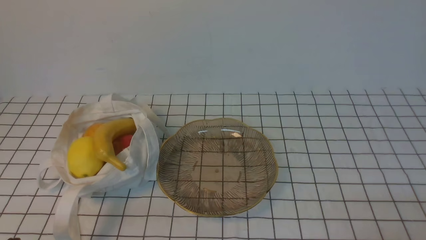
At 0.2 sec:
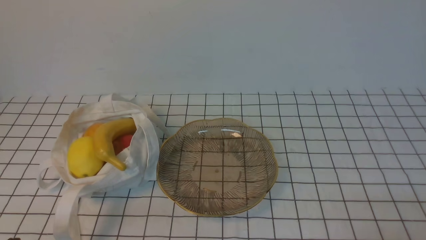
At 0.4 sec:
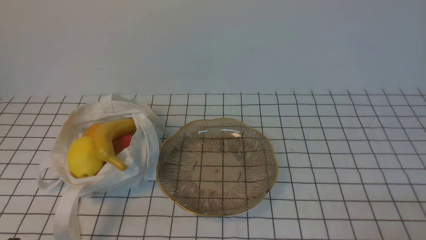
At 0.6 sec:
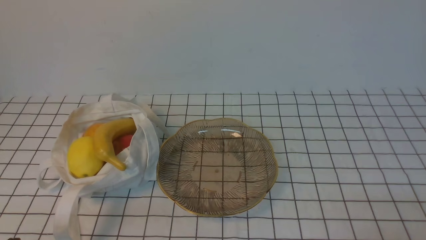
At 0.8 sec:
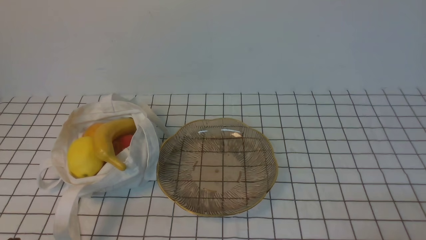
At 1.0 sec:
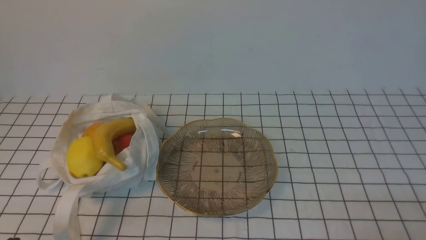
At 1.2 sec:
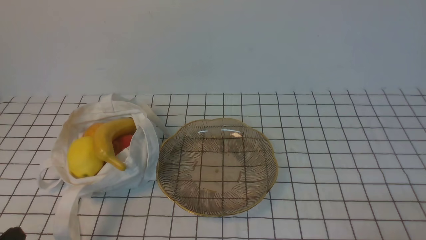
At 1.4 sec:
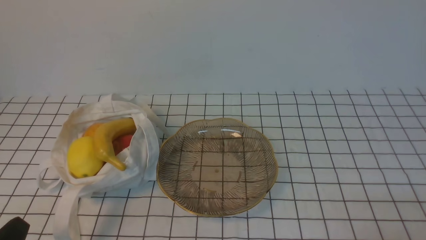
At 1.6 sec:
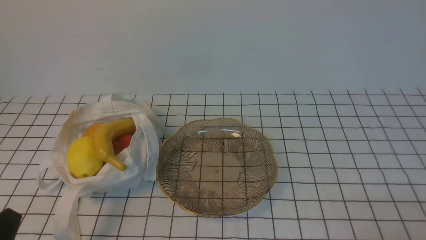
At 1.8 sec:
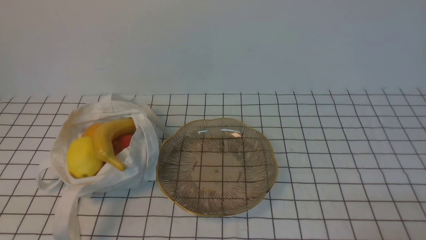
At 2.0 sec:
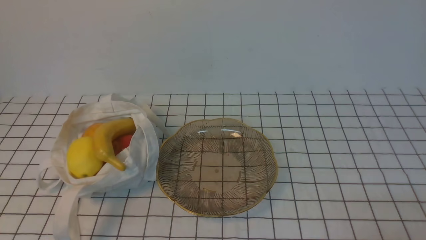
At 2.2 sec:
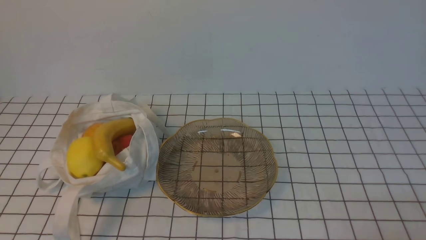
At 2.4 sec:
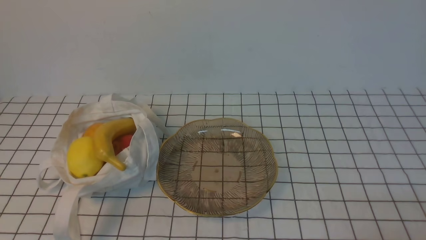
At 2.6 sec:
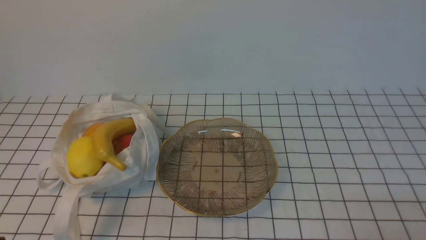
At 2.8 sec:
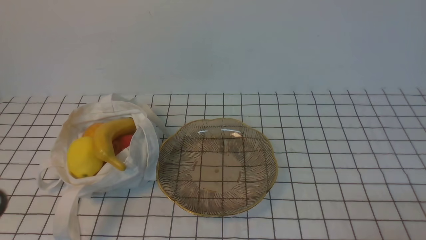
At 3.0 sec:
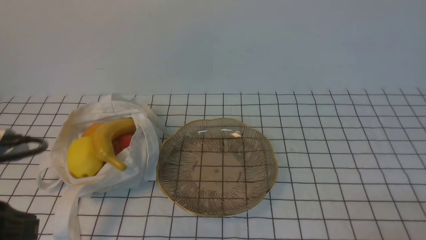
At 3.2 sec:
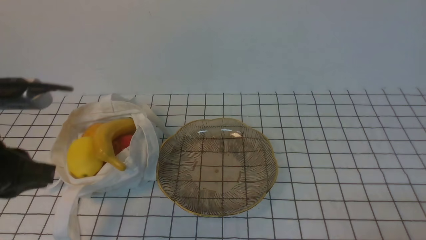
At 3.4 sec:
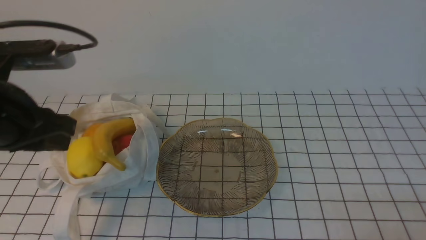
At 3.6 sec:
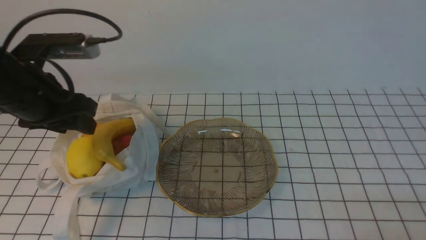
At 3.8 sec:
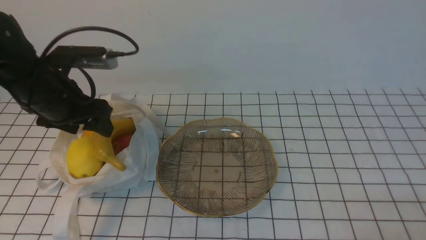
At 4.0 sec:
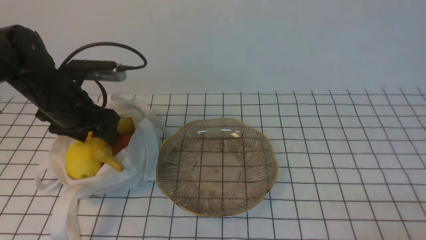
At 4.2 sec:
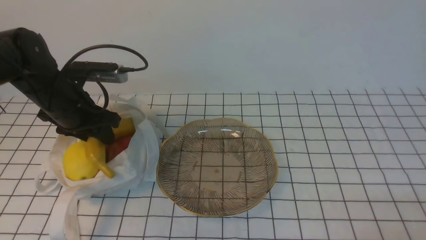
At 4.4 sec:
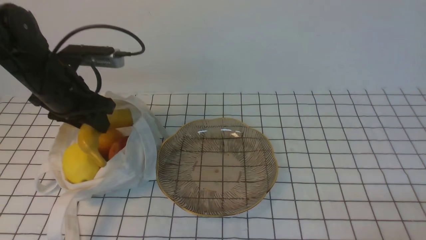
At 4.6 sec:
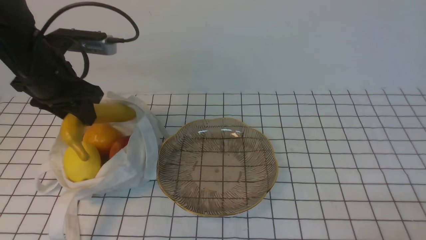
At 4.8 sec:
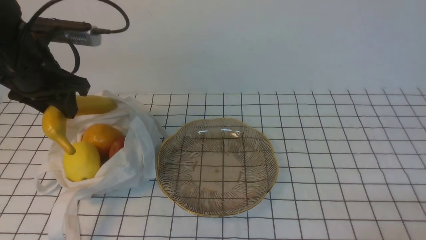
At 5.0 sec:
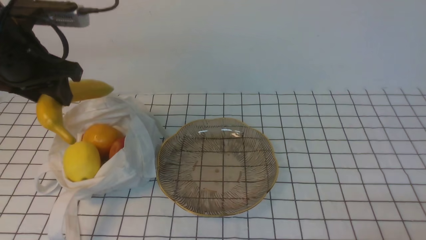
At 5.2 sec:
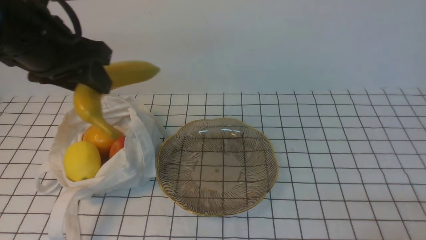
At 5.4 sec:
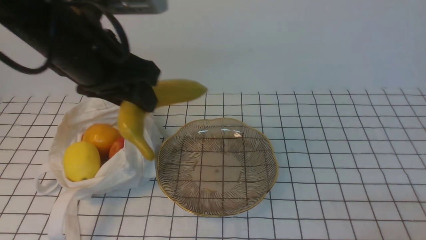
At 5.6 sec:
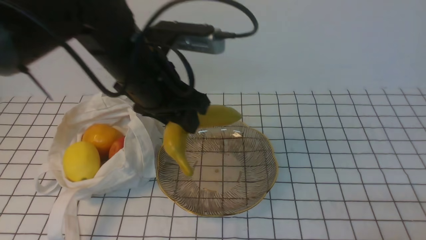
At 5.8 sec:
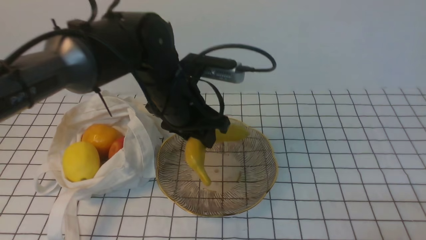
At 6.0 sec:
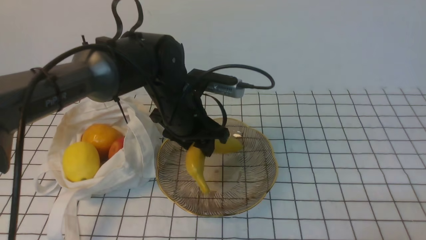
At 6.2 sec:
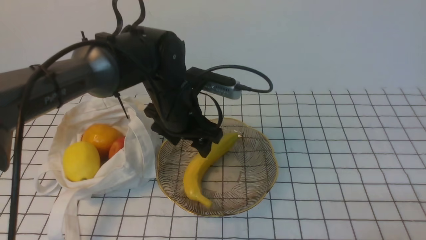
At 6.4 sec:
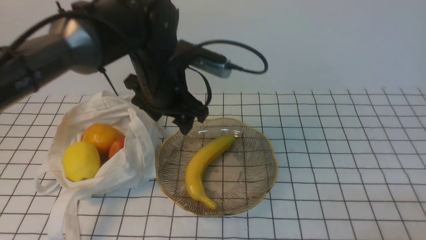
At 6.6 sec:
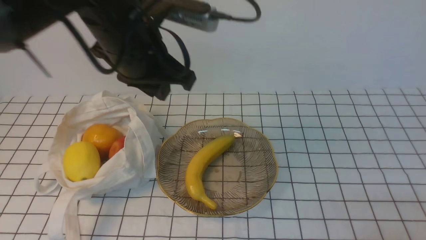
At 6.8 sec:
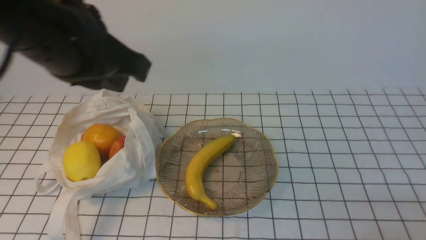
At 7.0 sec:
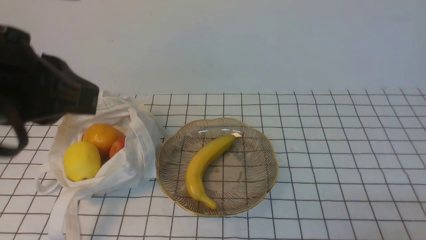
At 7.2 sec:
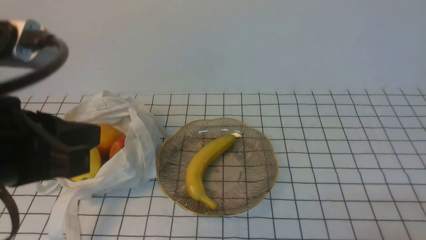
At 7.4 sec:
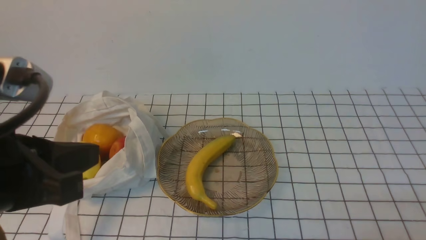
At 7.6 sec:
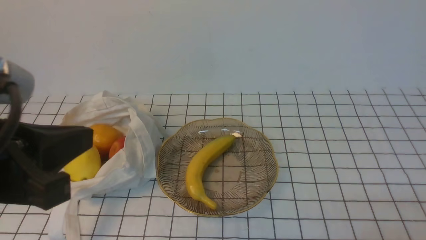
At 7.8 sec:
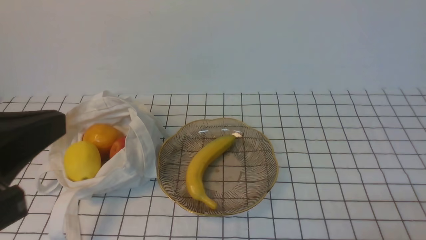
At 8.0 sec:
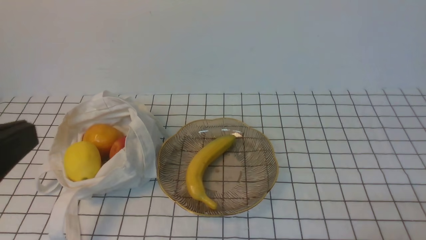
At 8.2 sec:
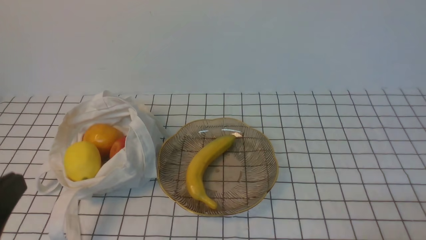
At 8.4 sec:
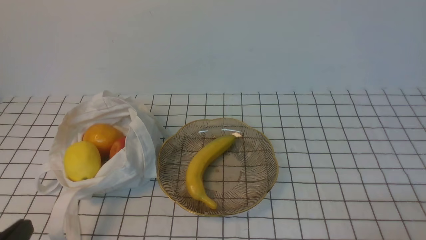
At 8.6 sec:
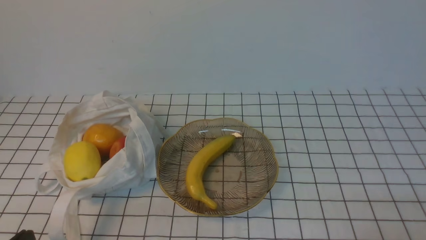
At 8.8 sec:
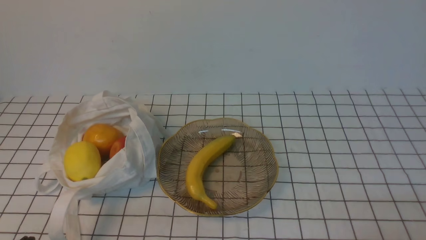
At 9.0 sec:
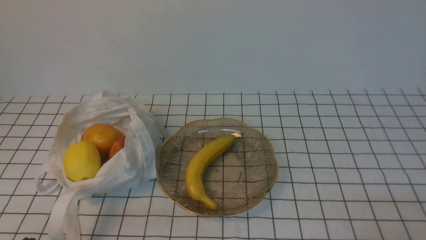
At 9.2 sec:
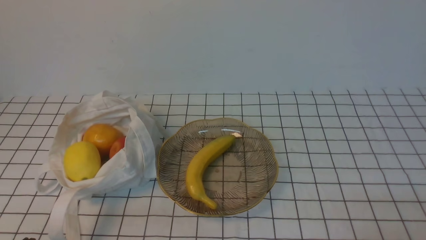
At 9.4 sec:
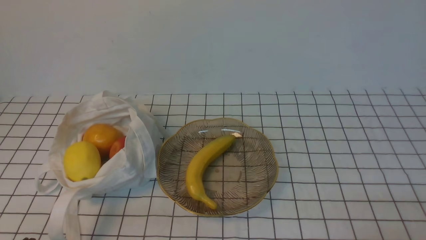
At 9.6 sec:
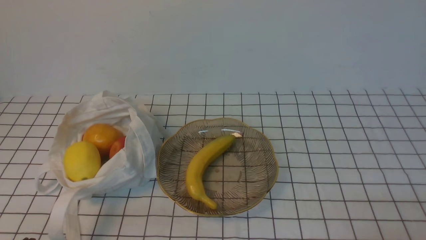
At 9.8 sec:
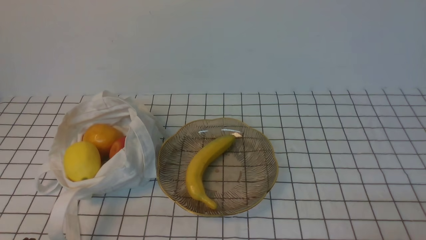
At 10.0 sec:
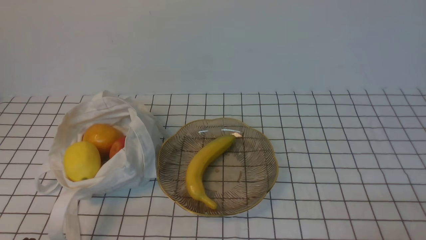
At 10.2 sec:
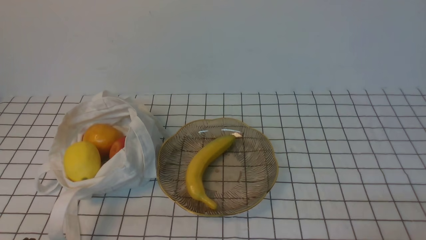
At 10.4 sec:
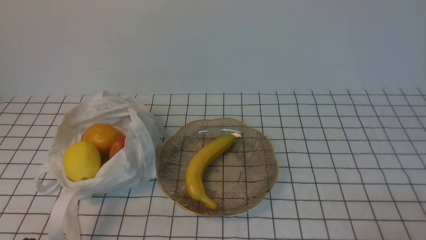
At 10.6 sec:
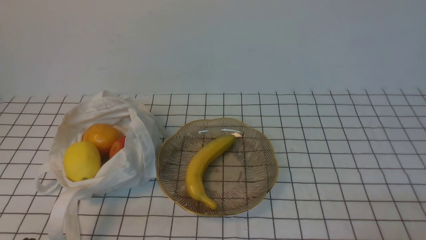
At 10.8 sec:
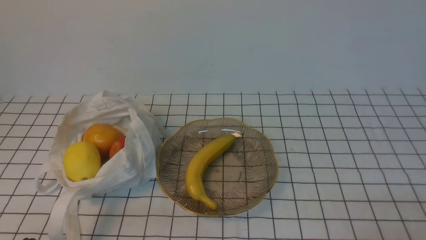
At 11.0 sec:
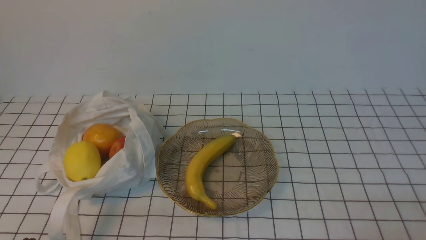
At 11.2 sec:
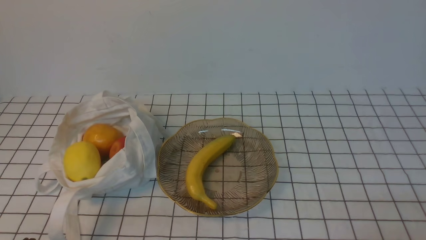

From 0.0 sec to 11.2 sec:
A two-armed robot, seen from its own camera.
Step, from 0.0 sec to 4.2 sec: use the left arm to grab a banana from the bag.
Step, from 4.4 sec to 6.2 sec: use the left arm to put the banana into the empty plate on the right.
From 1.6 sec to 3.2 sec: The left gripper goes about 20 cm upward and forward.
From 3.2 sec to 4.8 sec: The left gripper goes roughly 15 cm forward, and opens up.
From 4.8 sec to 6.4 sec: The left gripper moves to the right, roughly 15 cm.
From 6.4 sec to 8.0 sec: The left gripper moves backward and to the left, some 30 cm, and closes its fingers.
From 8.0 sec to 9.6 sec: The left gripper goes roughly 20 cm downward.
From 9.6 sec to 11.2 sec: Both grippers stay put.
